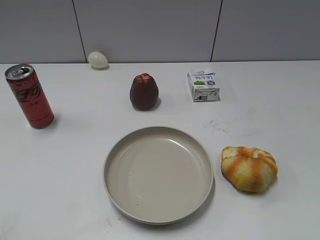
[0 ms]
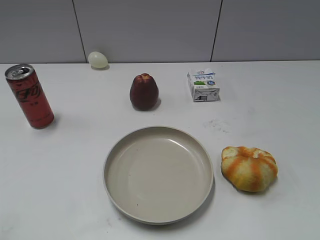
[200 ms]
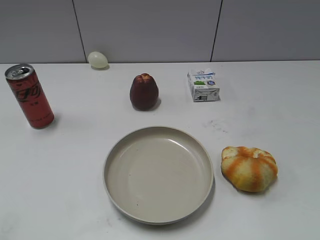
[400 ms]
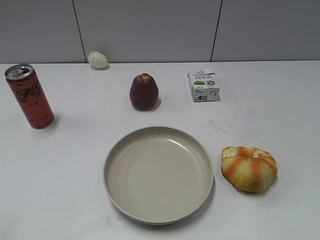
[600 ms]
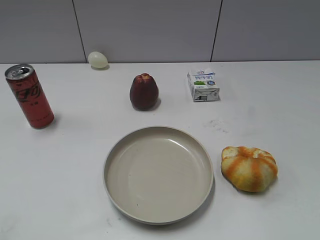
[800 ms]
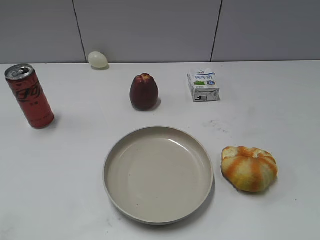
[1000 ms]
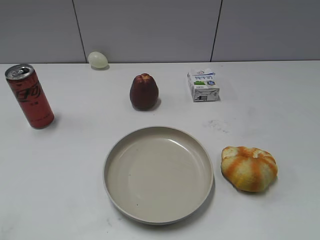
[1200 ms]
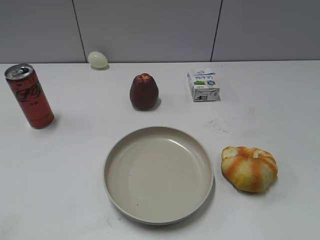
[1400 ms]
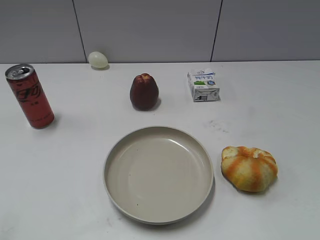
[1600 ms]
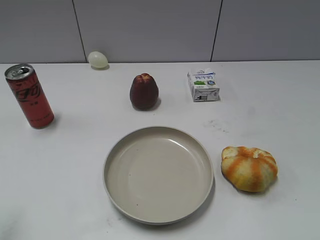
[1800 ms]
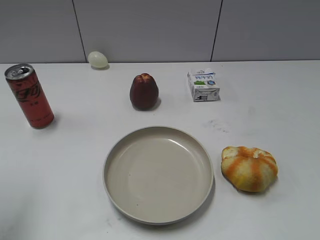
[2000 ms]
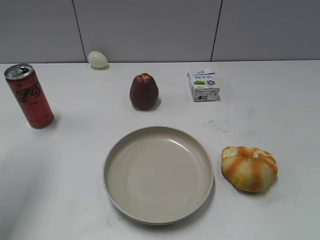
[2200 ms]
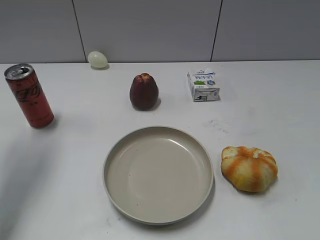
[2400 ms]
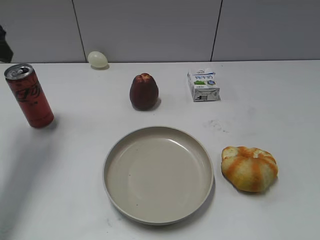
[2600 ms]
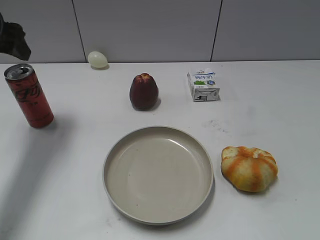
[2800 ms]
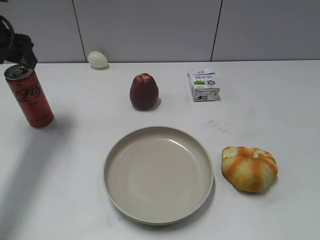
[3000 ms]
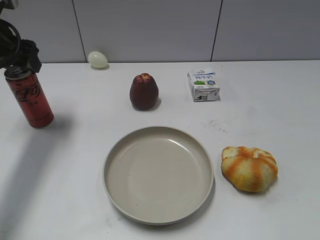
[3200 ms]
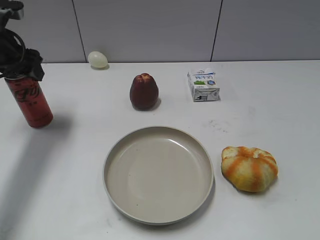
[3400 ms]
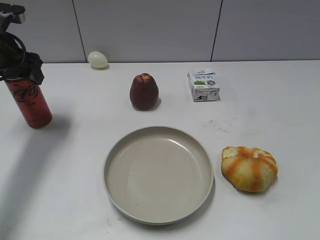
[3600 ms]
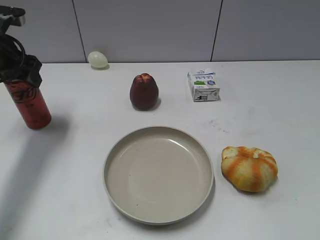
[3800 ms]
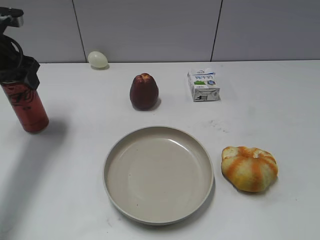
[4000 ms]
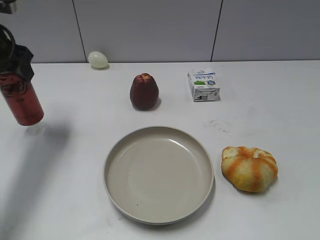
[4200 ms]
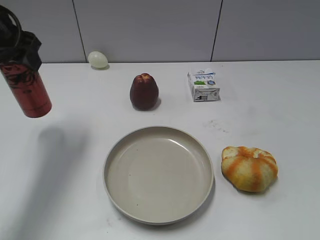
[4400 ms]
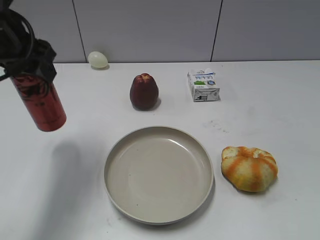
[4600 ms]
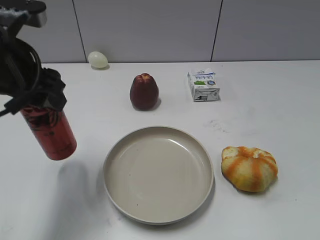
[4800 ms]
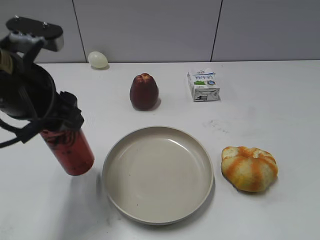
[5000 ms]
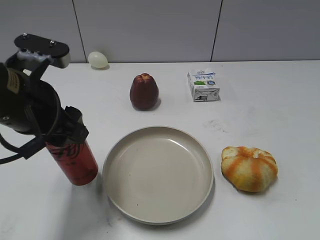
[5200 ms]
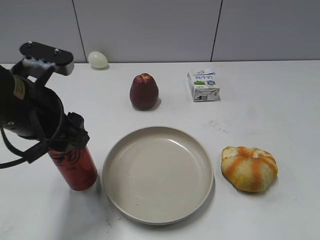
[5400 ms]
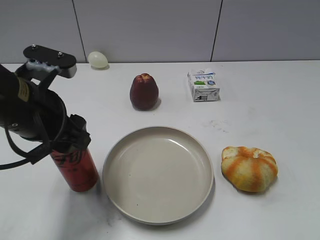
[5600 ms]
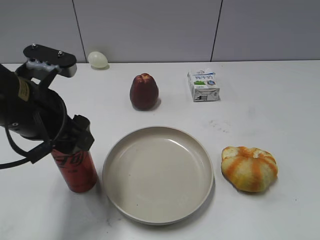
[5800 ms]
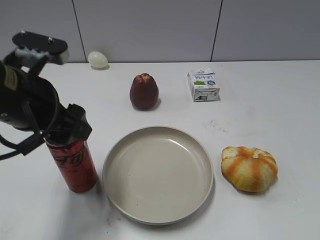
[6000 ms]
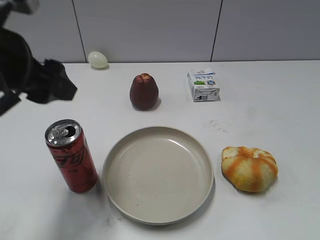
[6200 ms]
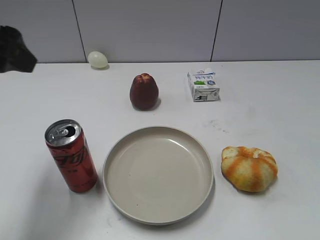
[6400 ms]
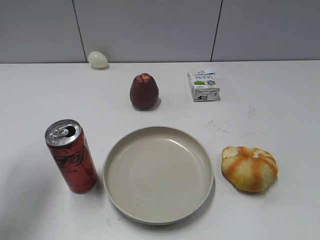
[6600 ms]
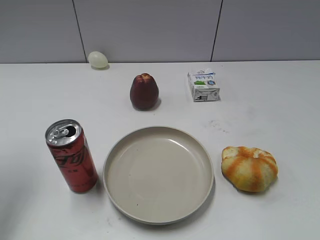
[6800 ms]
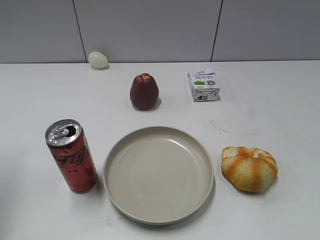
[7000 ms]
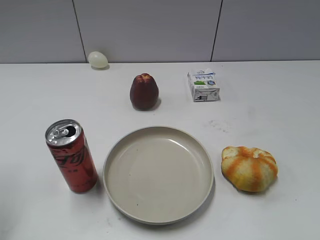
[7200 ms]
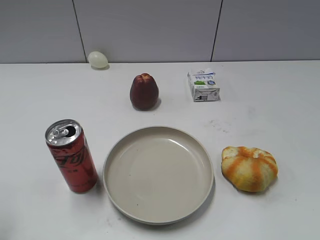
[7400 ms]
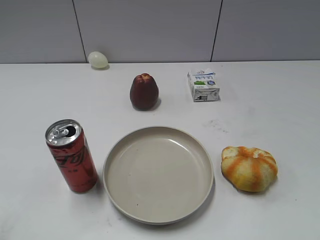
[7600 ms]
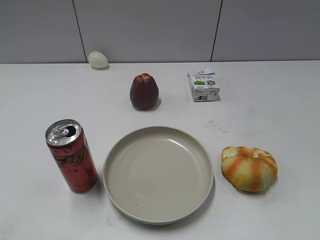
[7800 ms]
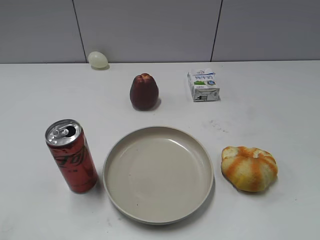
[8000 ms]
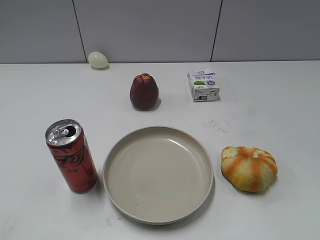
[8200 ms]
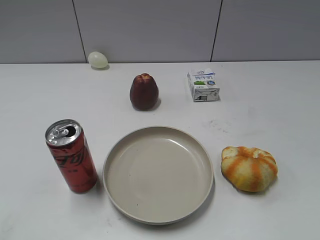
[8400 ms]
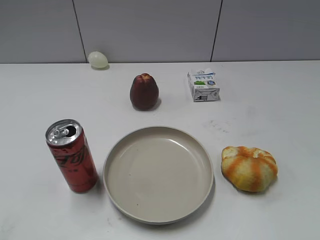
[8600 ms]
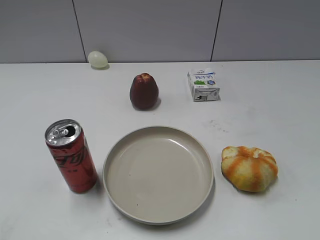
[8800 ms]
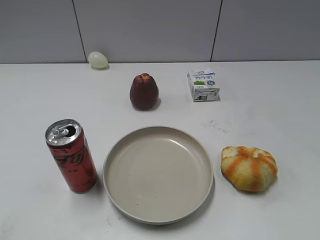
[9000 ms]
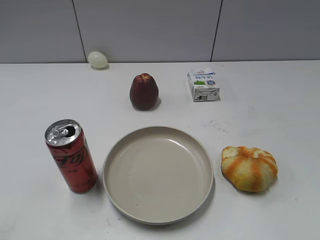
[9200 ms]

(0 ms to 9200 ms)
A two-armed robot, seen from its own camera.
Step, 1400 ms - 3800 ms: Grasp the cola with left gripper.
Step, 4000 ms - 6000 ms: Place the cola on the table with left gripper.
1600 ms - 3000 ms: The left gripper travels forward by some 35 cm, and opens its fingers.
3000 ms - 4600 ms: The left gripper travels backward and to the right by roughly 10 cm, and closes its fingers.
4600 ms - 6200 ms: The left gripper goes about 10 cm backward, and opens up.
6200 ms - 7600 ms: The left gripper moves to the left and backward, about 20 cm.

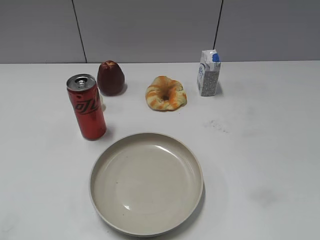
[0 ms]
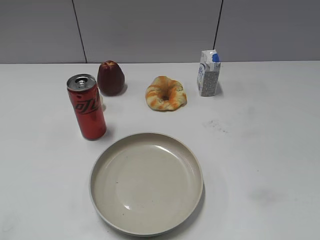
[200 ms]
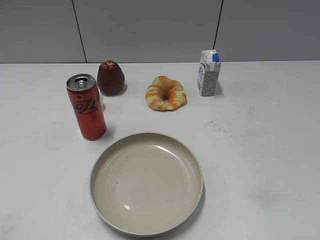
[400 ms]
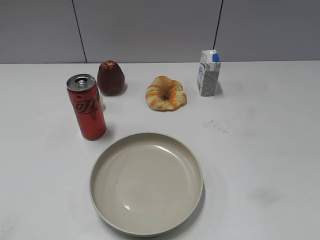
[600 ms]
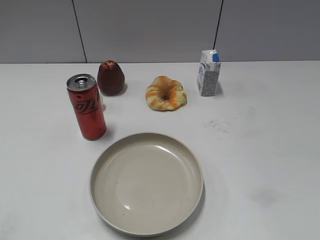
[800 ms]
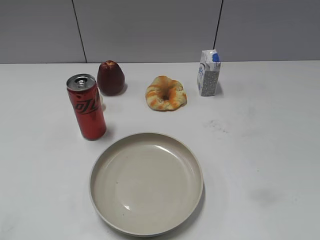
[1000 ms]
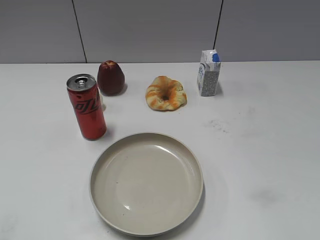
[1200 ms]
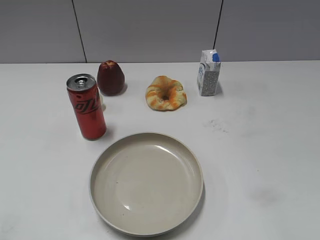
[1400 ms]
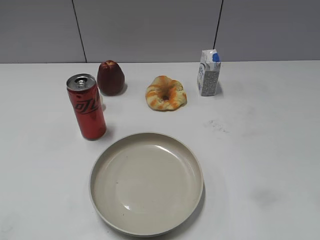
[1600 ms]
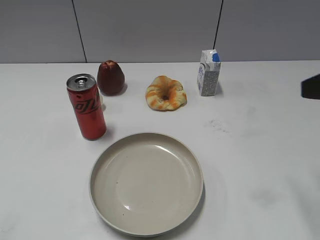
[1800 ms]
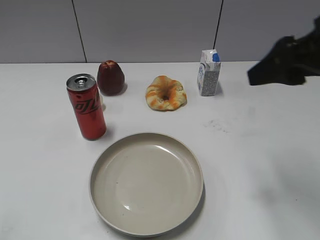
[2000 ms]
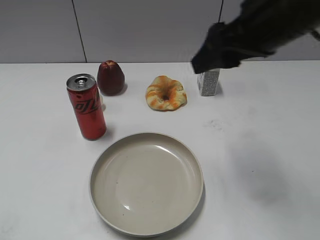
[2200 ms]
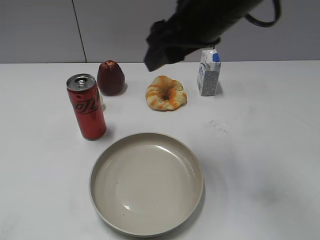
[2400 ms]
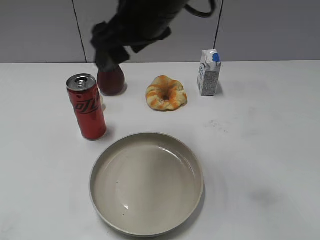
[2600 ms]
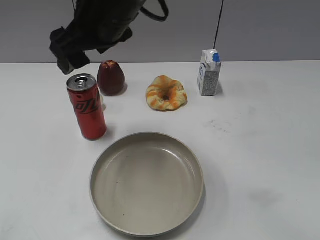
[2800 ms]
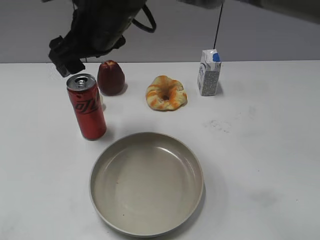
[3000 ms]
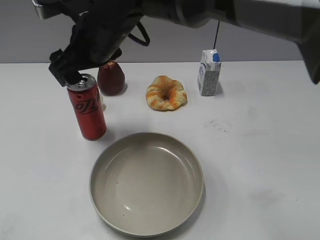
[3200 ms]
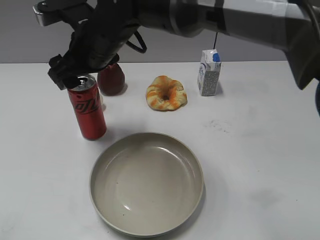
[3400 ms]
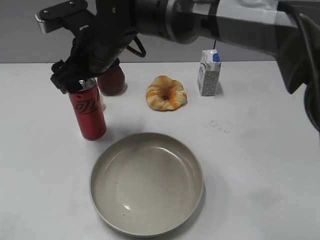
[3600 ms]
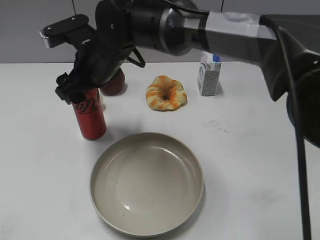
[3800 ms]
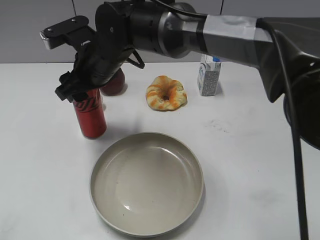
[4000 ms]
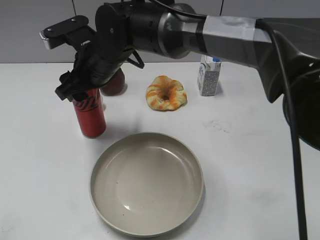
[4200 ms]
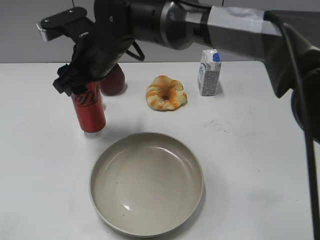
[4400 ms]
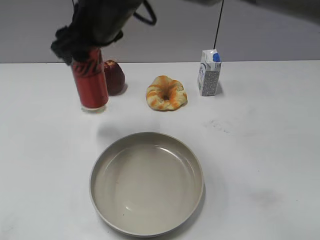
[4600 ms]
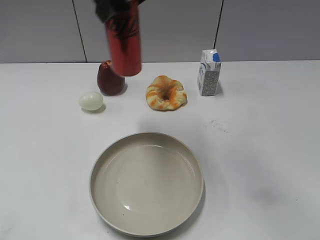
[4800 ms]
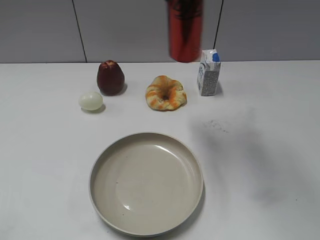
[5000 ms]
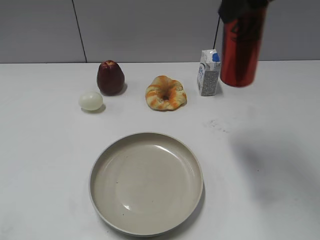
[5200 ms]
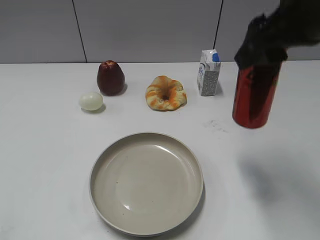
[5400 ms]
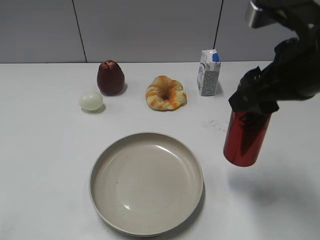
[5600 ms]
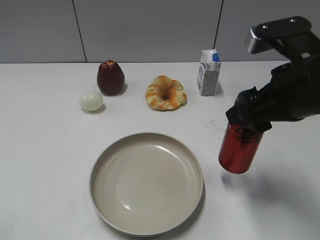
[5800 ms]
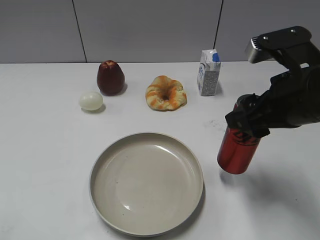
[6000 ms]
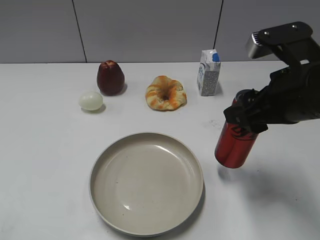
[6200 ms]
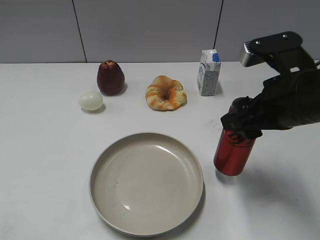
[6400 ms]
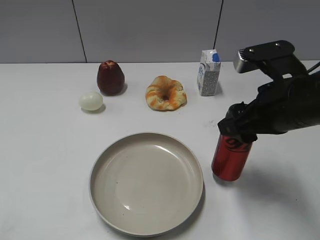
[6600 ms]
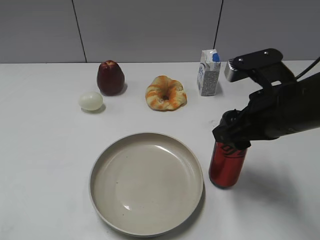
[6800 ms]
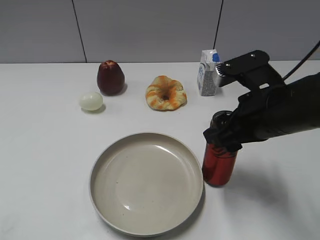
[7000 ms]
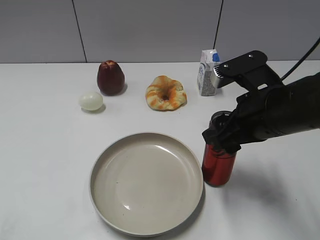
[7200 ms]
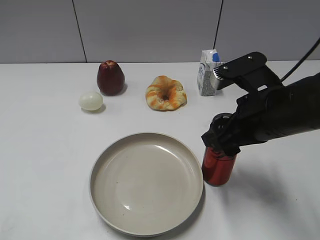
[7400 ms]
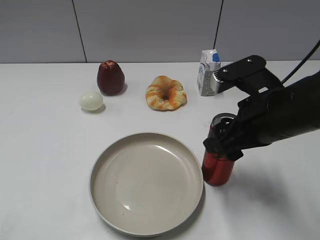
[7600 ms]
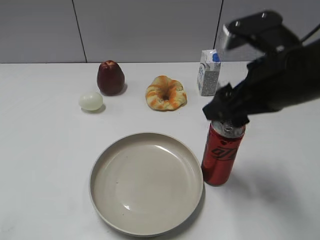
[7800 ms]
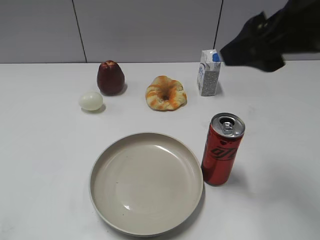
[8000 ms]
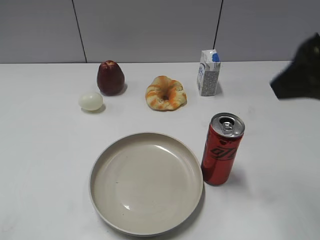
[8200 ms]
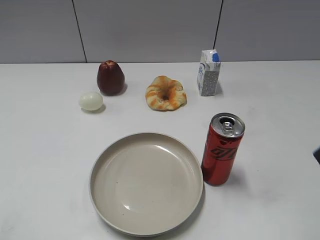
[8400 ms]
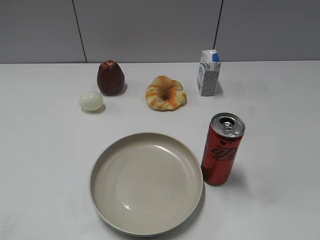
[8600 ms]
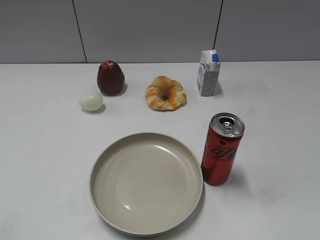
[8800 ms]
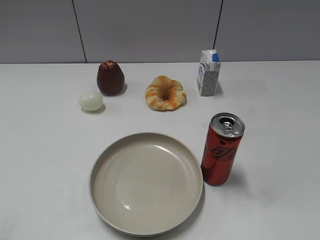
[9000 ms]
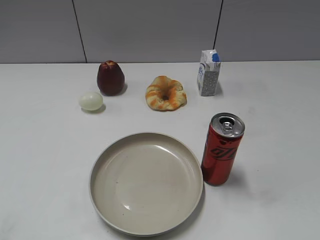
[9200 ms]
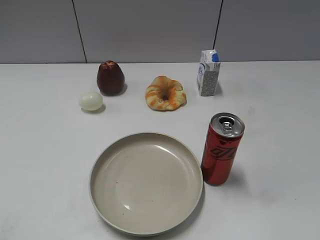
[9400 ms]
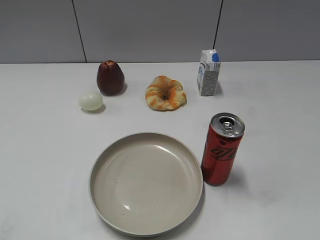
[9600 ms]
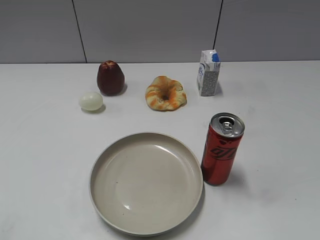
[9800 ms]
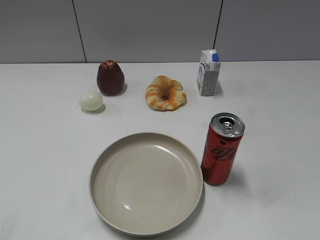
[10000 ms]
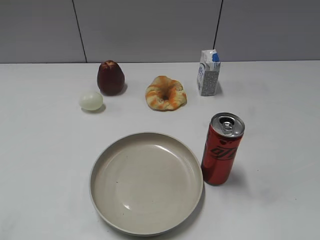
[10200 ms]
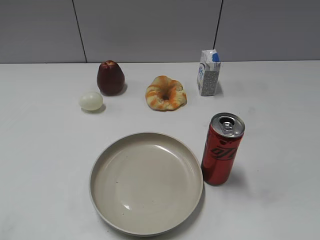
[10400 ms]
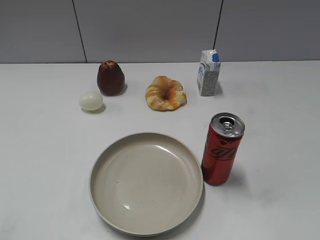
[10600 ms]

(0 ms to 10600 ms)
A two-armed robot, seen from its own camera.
Step, 1000 ms - 4200 ms: Grasp the cola with right gripper.
Step, 4400 ms - 7800 ms: Place the cola on the table with right gripper.
1600 ms - 3000 ms: The right gripper moves to the left and forward, some 40 cm, and opens its fingers.
3000 ms - 4600 ms: The right gripper travels downward and back again, about 10 cm each way, and closes.
4600 ms - 6000 ms: The right gripper shifts about 30 cm to the right and backward.
6000 ms - 7600 ms: The right gripper opens its fingers.
7600 ms - 9000 ms: The right gripper is displaced backward and to the right by approximately 20 cm.

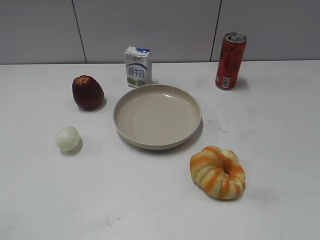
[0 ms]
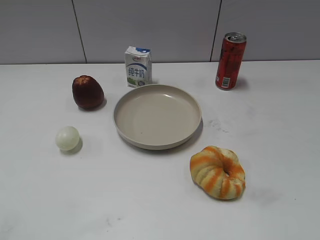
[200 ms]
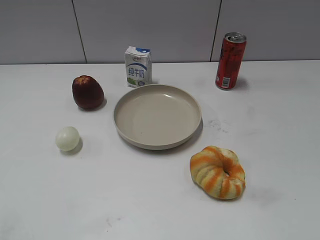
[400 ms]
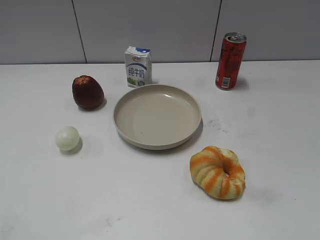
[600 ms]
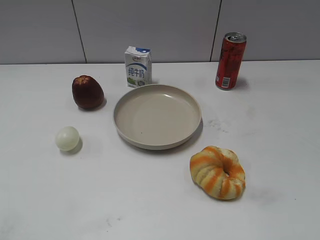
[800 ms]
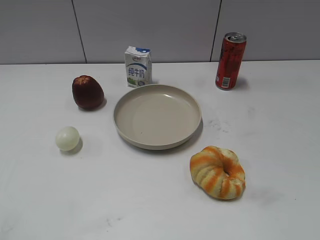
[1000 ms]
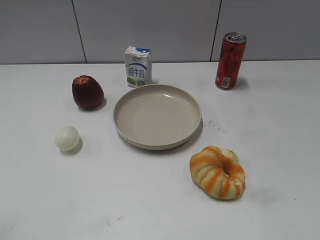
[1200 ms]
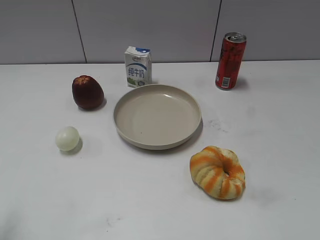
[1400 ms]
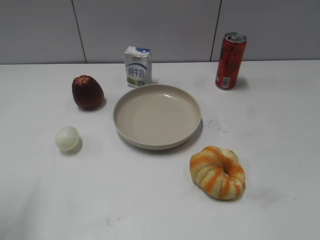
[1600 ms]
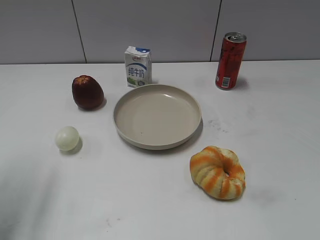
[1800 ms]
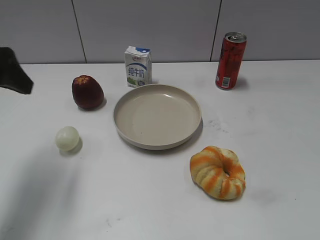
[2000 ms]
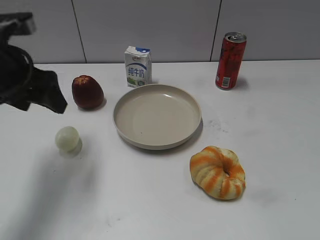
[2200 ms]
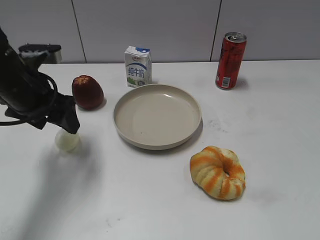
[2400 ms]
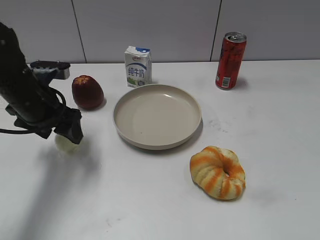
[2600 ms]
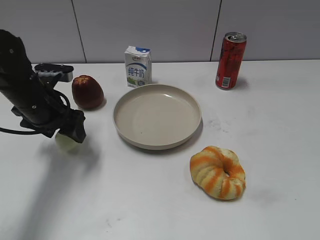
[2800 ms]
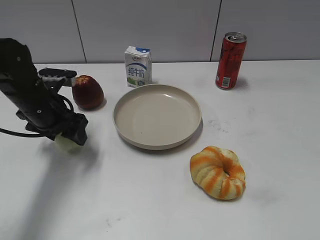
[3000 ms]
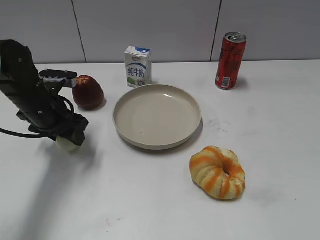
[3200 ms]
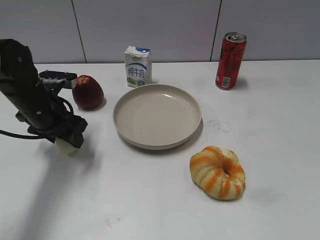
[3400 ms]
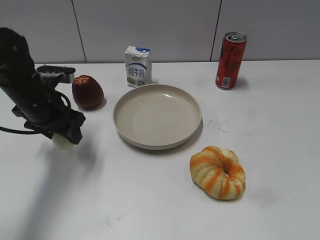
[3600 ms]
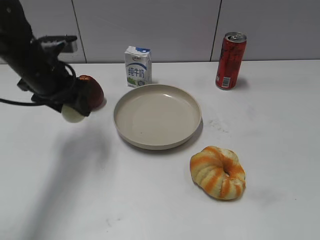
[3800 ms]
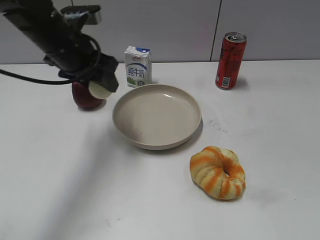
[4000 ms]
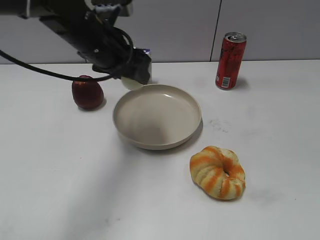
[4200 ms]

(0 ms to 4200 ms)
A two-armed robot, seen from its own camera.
1400 ms - 2800 ms: The left gripper shifts some 30 cm forward, downward and to the right.
2800 ms - 4200 ms: The left gripper moves to the right and upward, about 15 cm, and closes.
